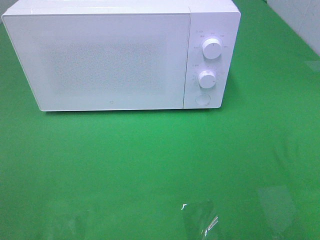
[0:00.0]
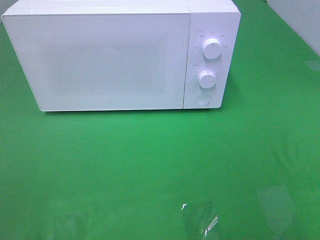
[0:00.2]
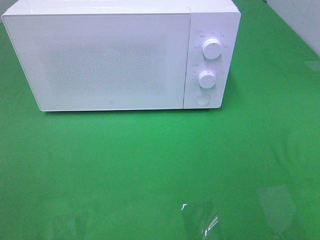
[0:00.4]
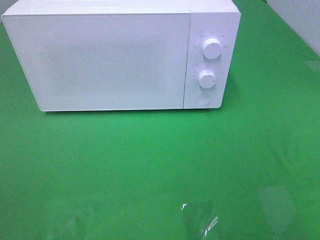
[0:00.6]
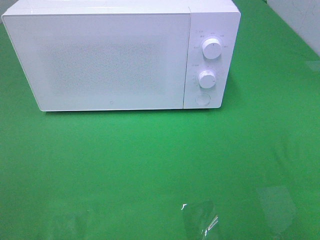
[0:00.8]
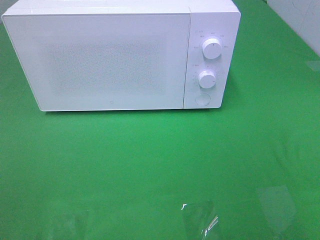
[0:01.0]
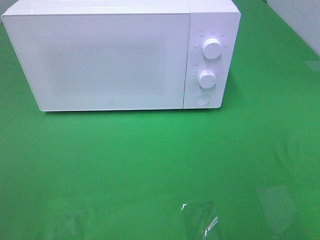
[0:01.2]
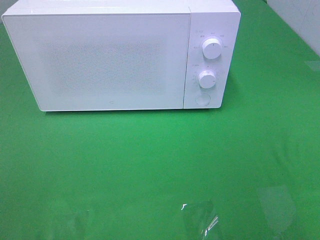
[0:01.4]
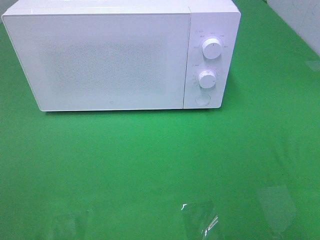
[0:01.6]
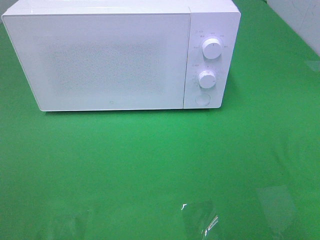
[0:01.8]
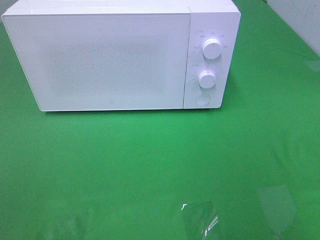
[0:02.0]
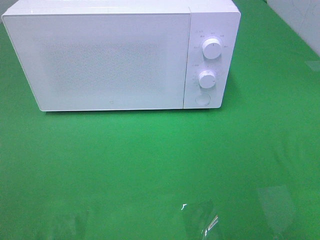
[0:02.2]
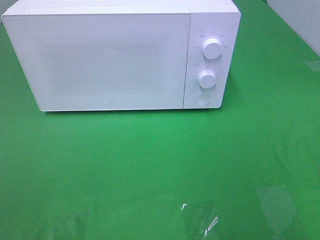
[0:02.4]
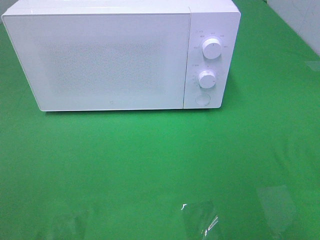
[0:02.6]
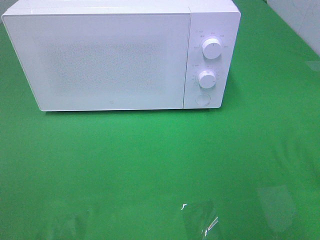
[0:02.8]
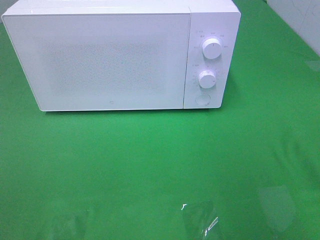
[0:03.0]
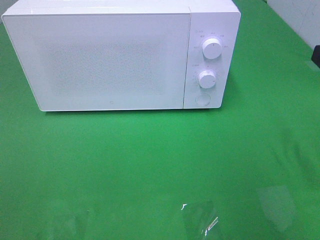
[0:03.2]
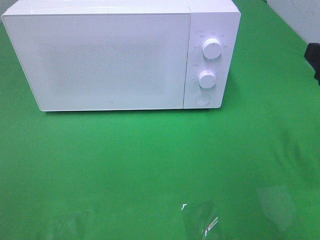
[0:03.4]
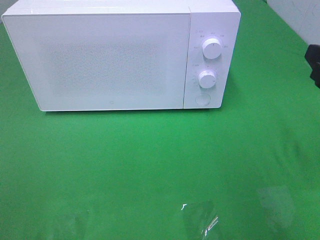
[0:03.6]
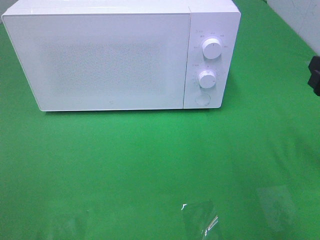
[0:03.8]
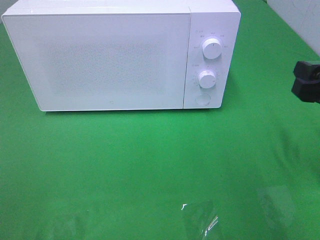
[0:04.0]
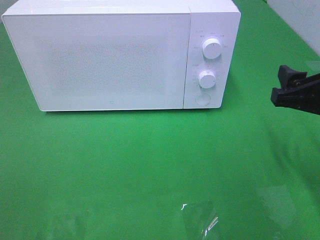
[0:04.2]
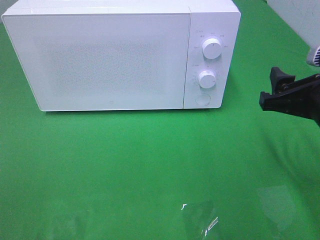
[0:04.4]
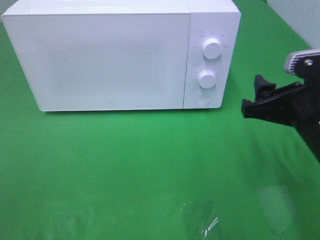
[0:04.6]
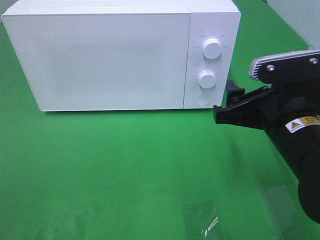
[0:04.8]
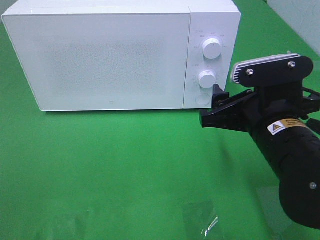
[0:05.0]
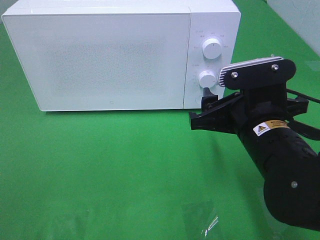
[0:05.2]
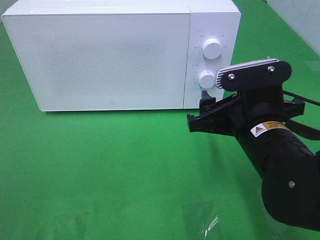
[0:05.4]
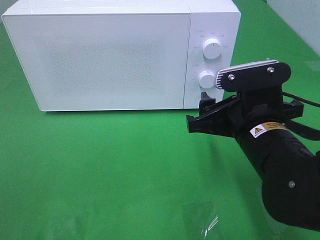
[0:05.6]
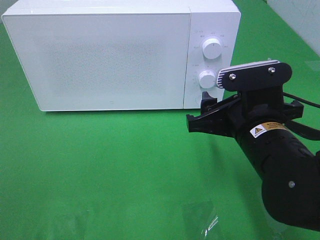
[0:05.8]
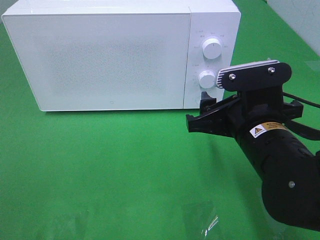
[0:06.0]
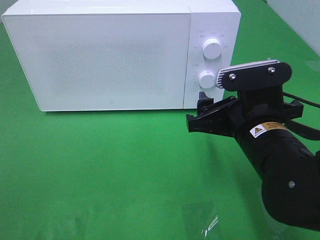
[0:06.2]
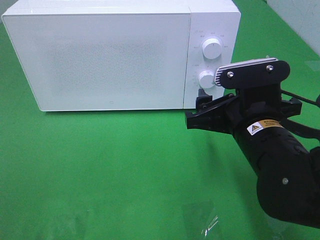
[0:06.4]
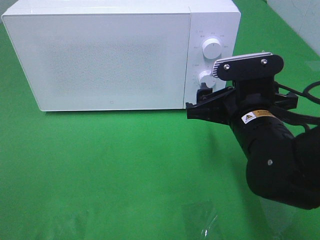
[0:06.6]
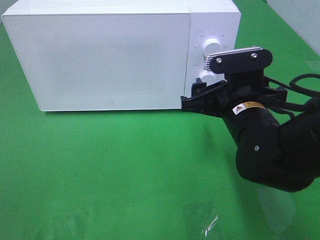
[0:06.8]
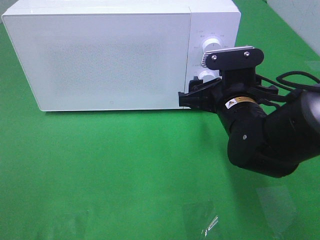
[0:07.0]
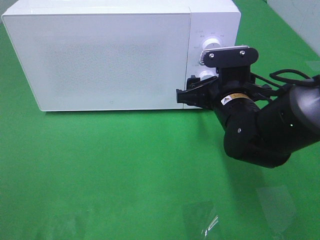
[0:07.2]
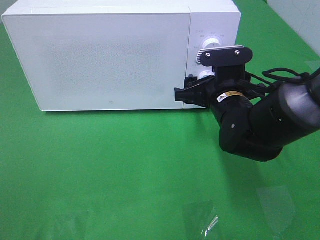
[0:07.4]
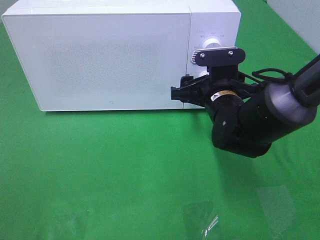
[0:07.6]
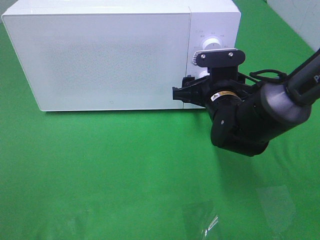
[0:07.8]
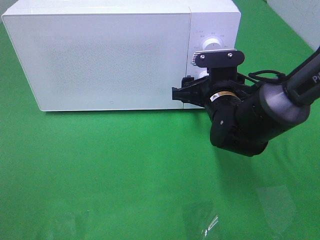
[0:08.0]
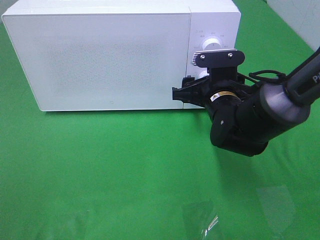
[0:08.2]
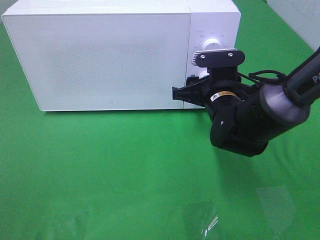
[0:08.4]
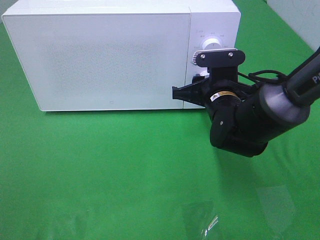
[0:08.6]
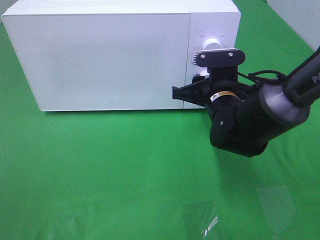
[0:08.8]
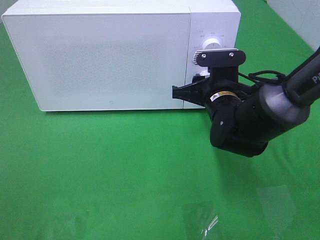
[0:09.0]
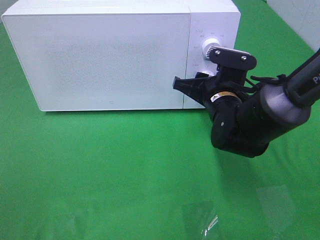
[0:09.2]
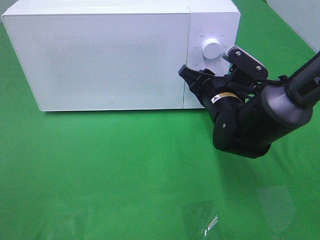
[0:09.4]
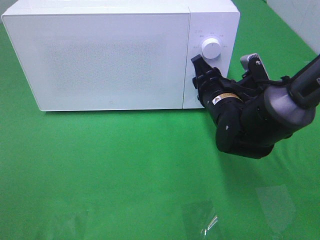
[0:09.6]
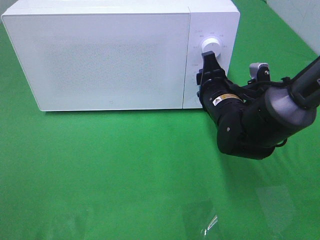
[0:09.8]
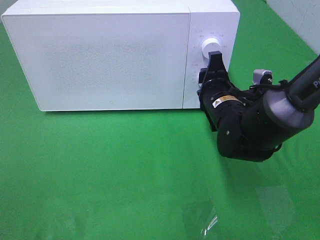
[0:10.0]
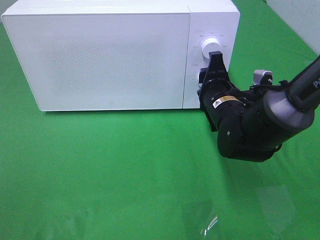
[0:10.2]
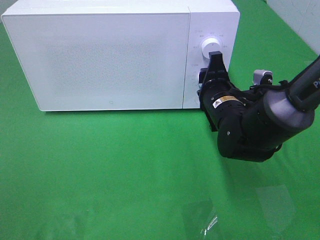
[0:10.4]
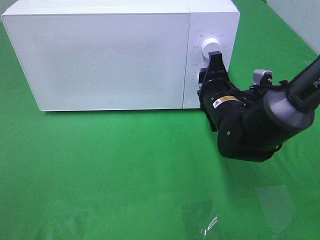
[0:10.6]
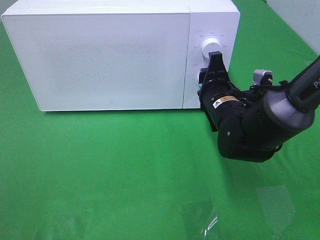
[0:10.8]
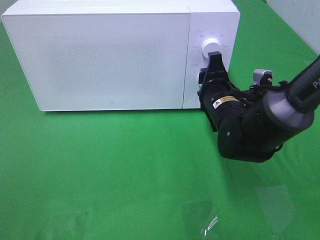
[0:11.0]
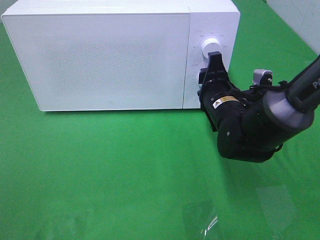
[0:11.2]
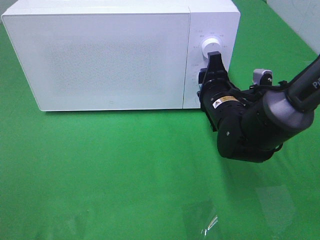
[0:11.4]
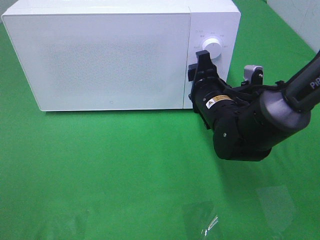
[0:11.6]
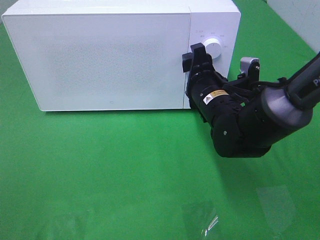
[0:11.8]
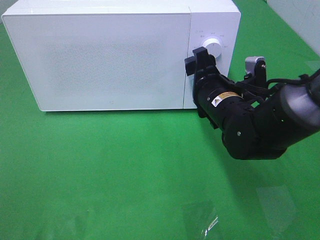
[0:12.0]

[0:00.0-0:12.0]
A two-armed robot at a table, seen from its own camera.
Task of the whole recording: Heat the burger.
Step, 0:00.0 to 0:11.4: Right hand: twist timer button.
0:03.0 to 0:04.4: The right gripper moves downward and to the left, about 10 cm.
0:04.4 to 0:06.0: The right gripper travels to the left by some 10 cm.
0:06.0 to 0:07.6: The right gripper goes about 10 cm forward.
0:07.6 to 0:09.0: The right gripper closes.
0:10.4 to 0:12.0: The right gripper opens up.

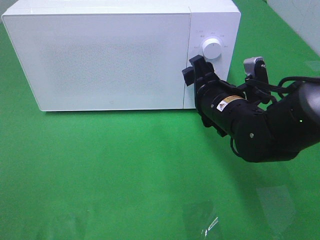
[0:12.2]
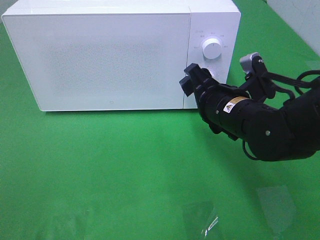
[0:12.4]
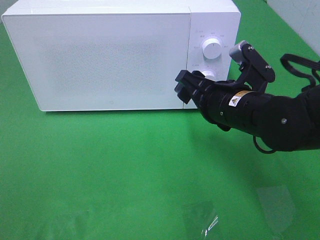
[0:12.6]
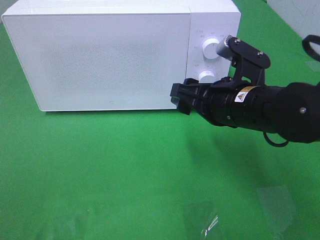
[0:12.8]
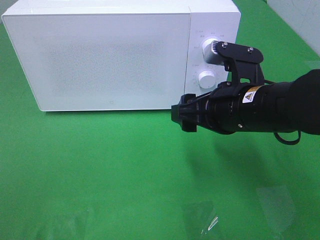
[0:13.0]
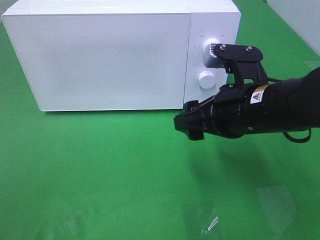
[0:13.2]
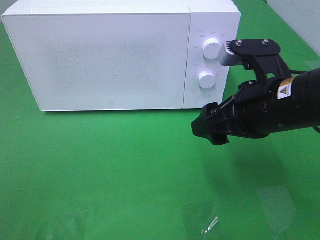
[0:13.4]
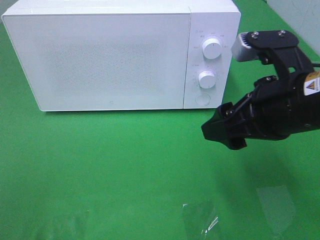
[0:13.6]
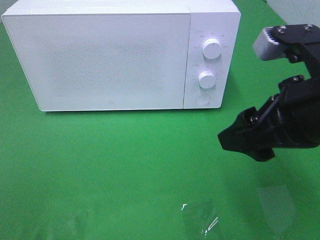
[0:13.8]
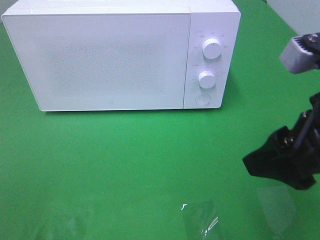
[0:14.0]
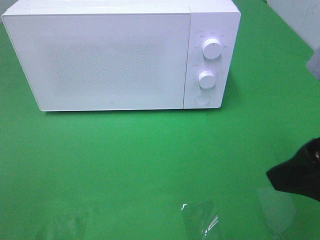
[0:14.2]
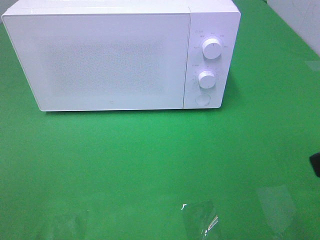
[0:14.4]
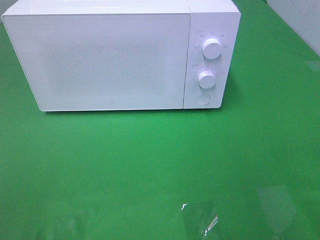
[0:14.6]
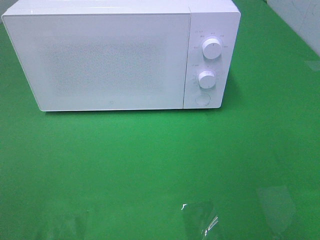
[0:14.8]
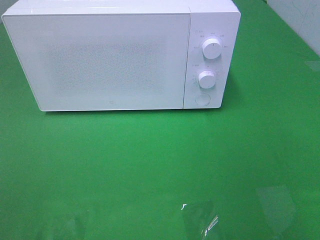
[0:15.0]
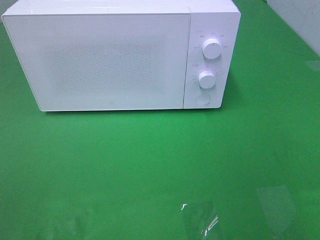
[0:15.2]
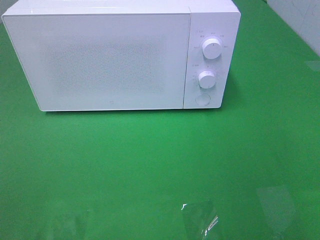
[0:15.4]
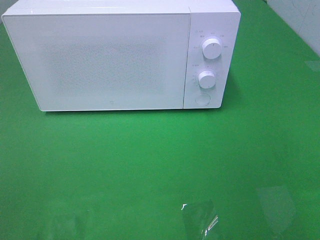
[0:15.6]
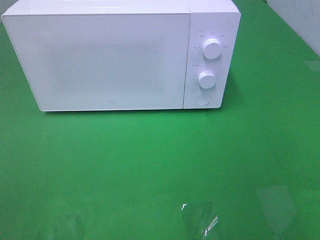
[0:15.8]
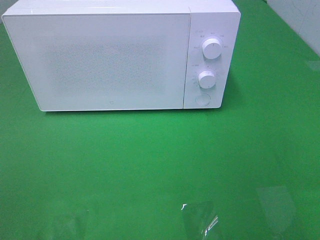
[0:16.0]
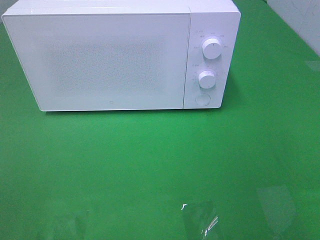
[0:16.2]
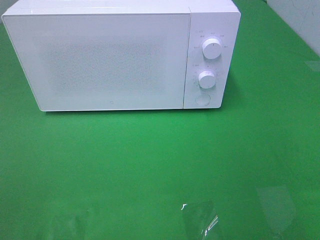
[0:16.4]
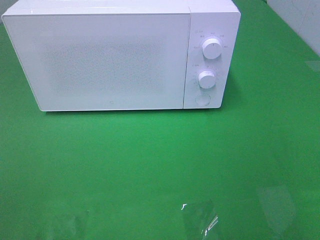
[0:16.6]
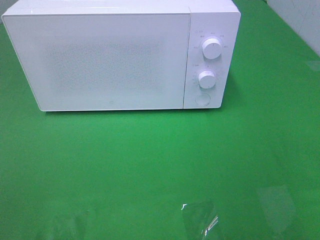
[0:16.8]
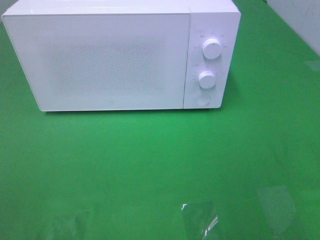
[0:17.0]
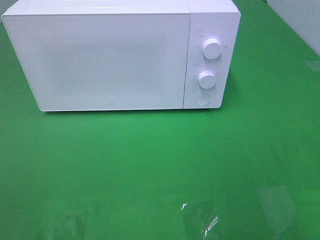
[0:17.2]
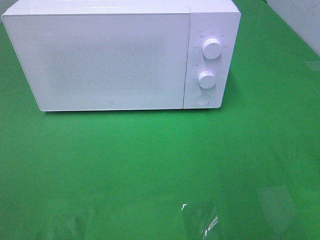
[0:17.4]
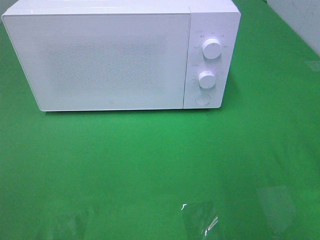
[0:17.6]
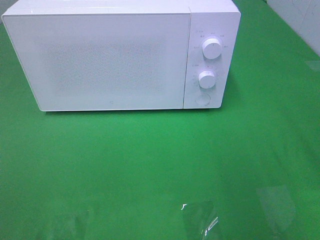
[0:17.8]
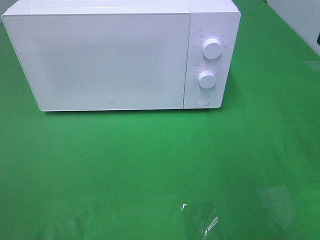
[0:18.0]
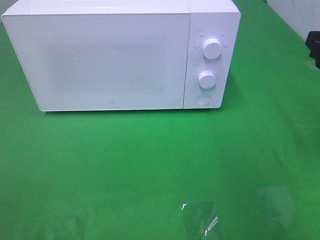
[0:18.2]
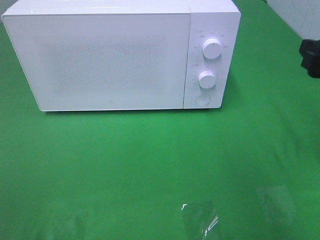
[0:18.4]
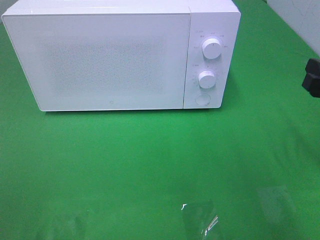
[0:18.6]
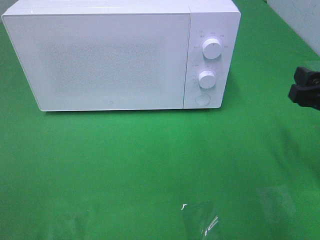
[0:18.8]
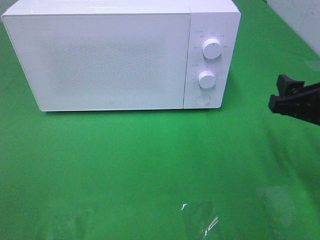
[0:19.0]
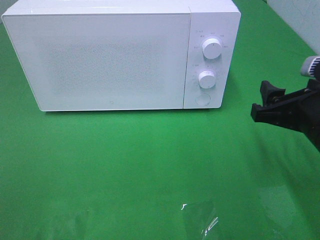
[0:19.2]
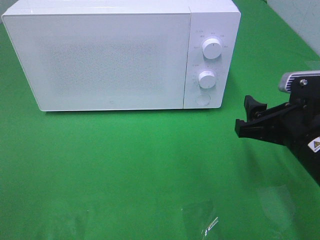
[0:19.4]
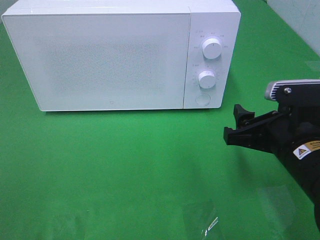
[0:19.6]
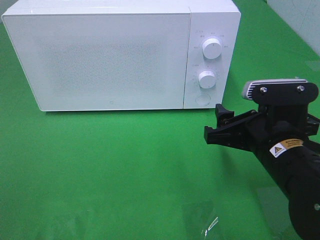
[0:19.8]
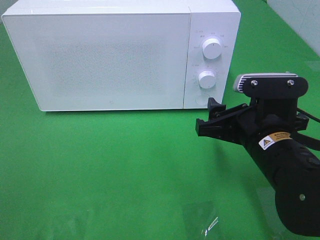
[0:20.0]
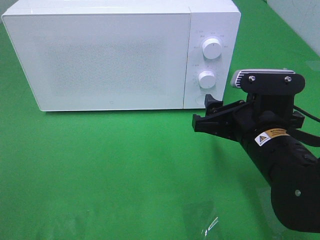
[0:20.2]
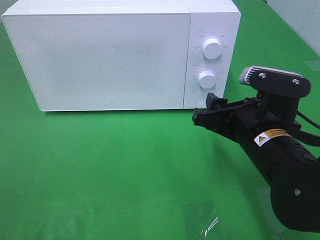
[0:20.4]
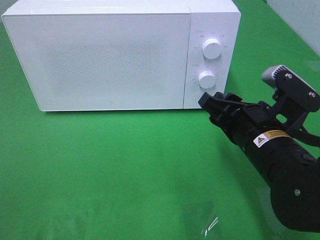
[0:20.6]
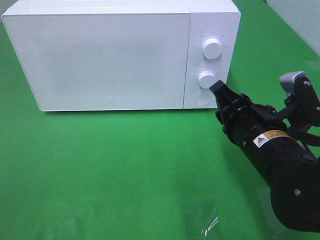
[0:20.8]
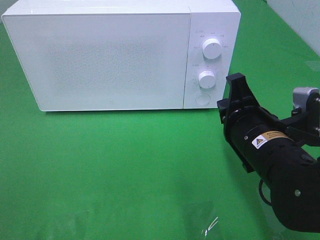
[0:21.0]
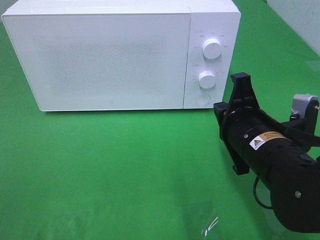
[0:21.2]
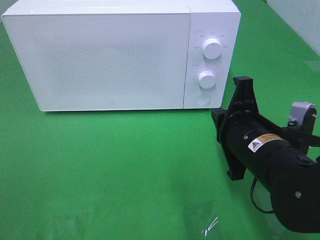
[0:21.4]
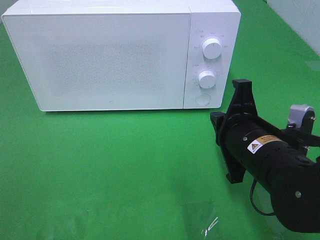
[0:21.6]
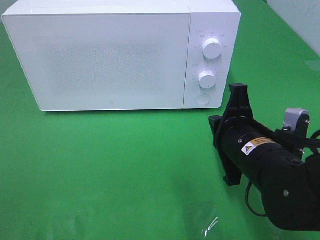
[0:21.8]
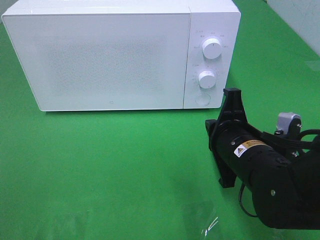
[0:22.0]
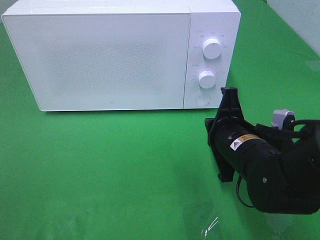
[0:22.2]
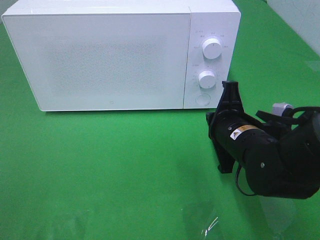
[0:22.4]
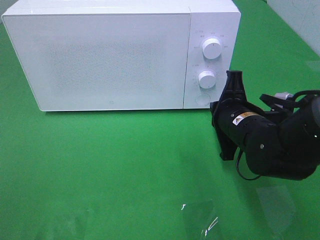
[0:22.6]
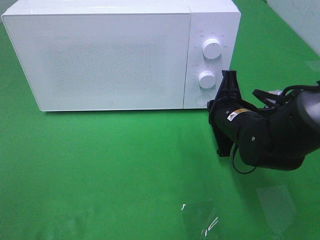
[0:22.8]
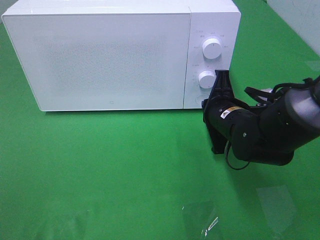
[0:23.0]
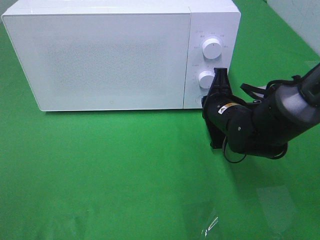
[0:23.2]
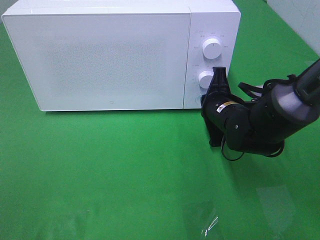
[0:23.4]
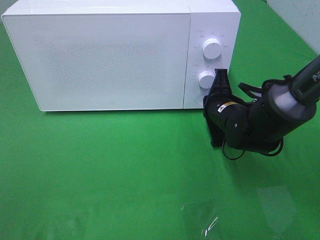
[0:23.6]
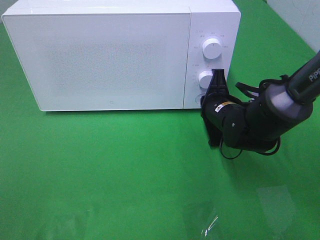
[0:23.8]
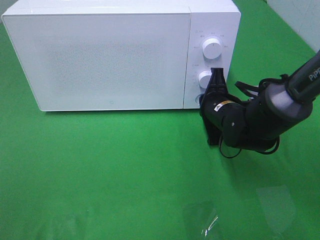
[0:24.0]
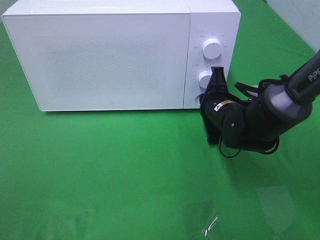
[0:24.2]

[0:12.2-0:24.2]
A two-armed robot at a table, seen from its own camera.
Task of the whole recording: Heat the burger.
0:12.2 to 0:13.8: The right gripper heads upward, backward and to the right, covering roughly 20 cm.
0:13.8 to 0:15.2: The right gripper is displaced backward and to the right by roughly 20 cm.
0:15.2 to 0:16.6: Neither gripper changes place.
0:18.2 to 0:19.8: The right gripper travels to the left and downward by about 15 cm.
0:19.8 to 0:21.2: The right gripper closes.
0:21.2 to 0:22.6: The right gripper goes roughly 5 cm forward.
0:22.6 to 0:24.2: The right gripper travels forward by some 5 cm.
